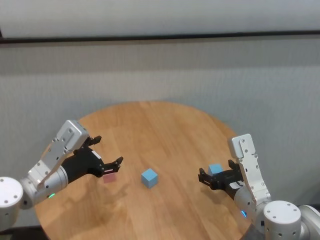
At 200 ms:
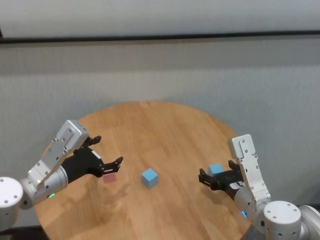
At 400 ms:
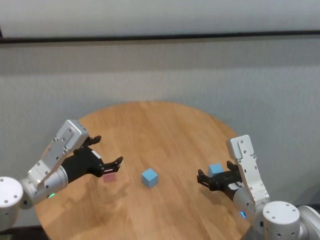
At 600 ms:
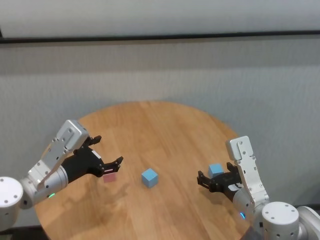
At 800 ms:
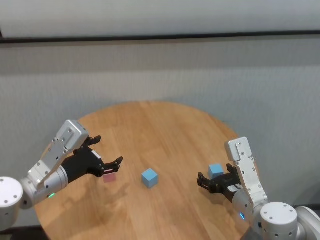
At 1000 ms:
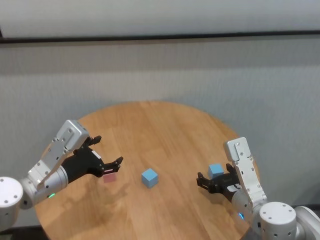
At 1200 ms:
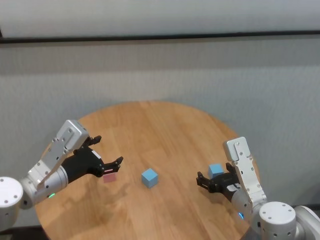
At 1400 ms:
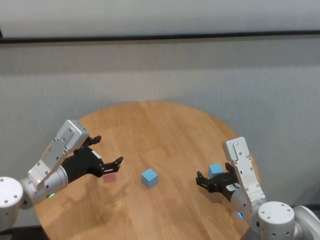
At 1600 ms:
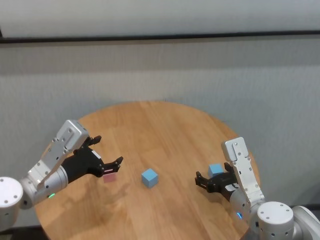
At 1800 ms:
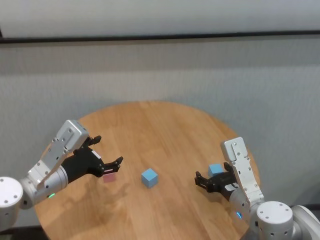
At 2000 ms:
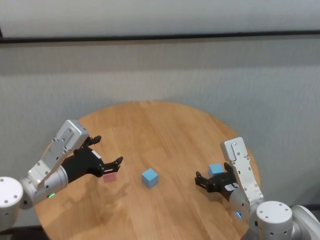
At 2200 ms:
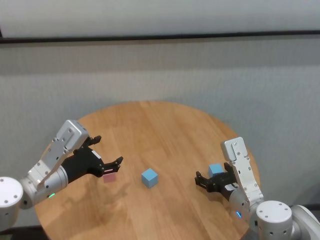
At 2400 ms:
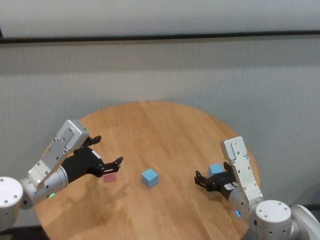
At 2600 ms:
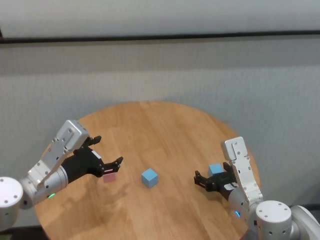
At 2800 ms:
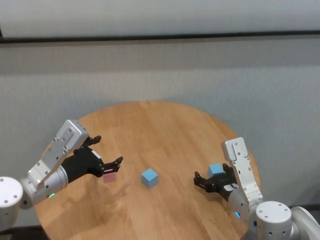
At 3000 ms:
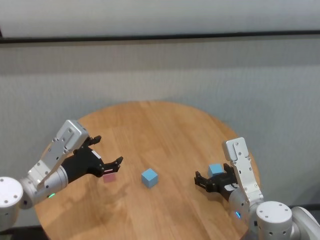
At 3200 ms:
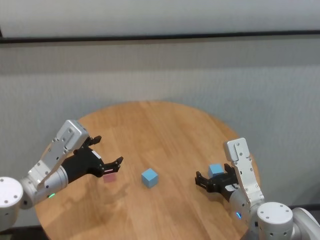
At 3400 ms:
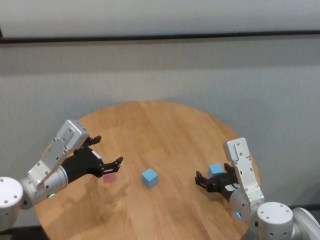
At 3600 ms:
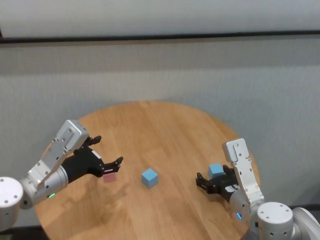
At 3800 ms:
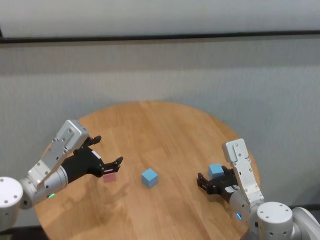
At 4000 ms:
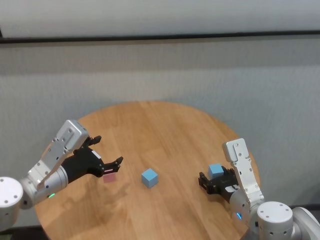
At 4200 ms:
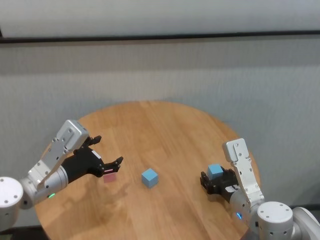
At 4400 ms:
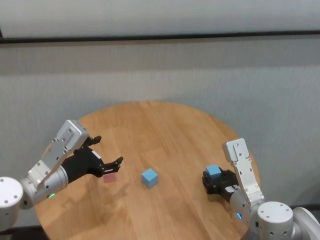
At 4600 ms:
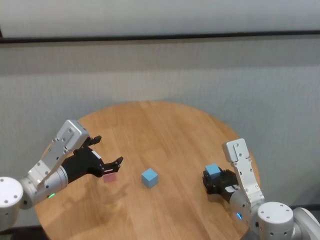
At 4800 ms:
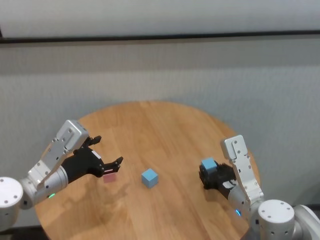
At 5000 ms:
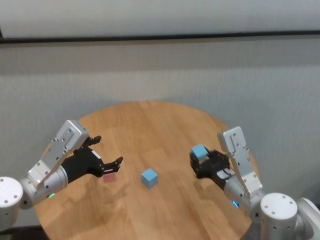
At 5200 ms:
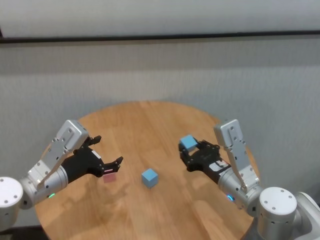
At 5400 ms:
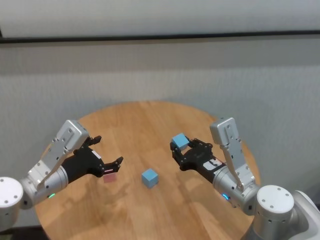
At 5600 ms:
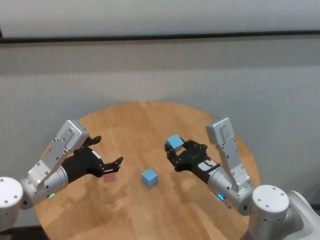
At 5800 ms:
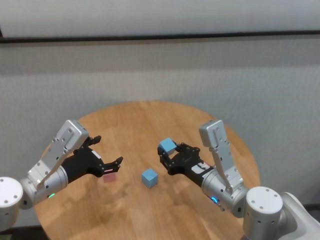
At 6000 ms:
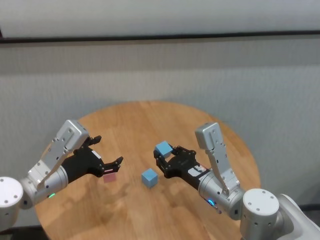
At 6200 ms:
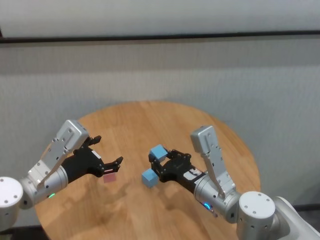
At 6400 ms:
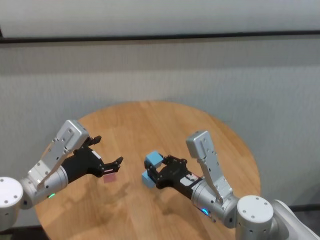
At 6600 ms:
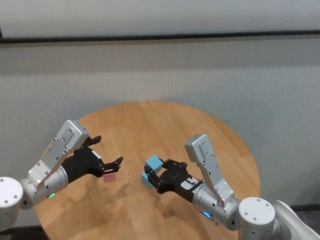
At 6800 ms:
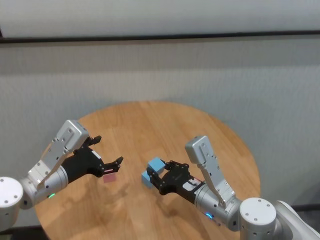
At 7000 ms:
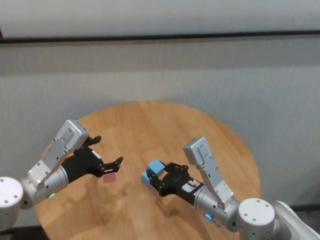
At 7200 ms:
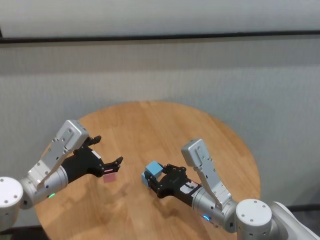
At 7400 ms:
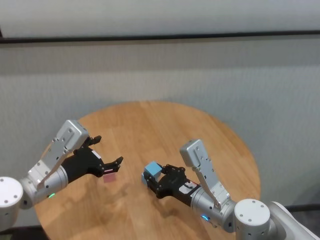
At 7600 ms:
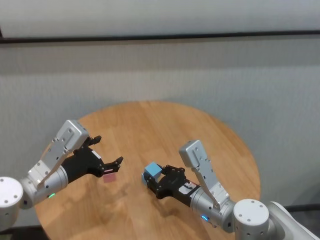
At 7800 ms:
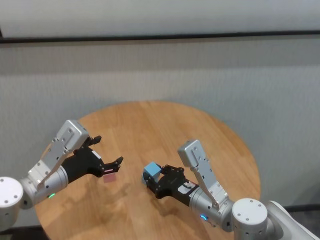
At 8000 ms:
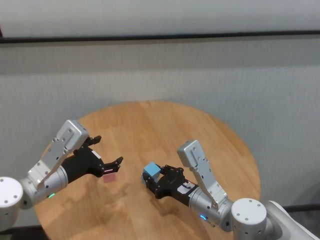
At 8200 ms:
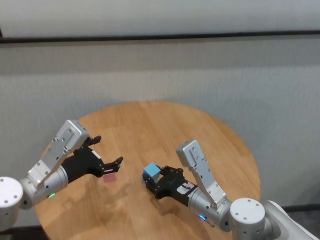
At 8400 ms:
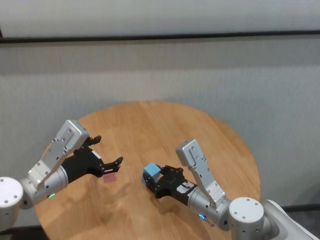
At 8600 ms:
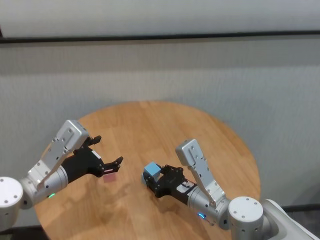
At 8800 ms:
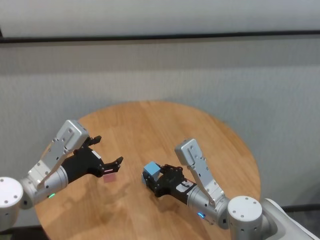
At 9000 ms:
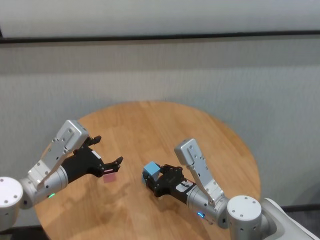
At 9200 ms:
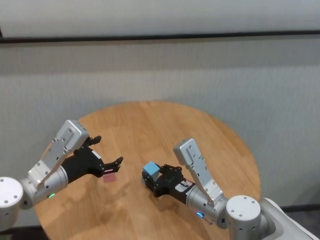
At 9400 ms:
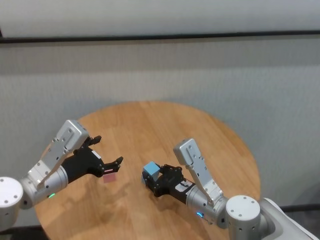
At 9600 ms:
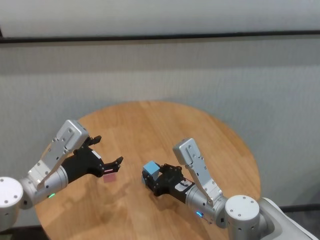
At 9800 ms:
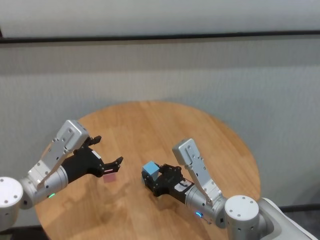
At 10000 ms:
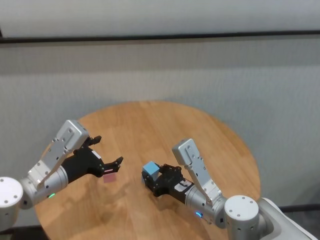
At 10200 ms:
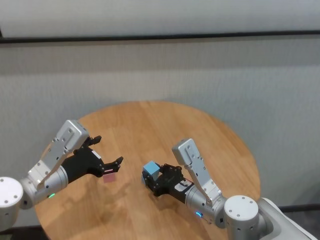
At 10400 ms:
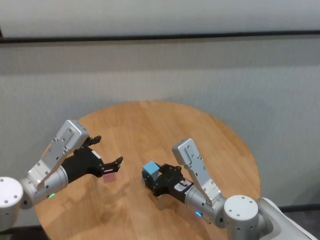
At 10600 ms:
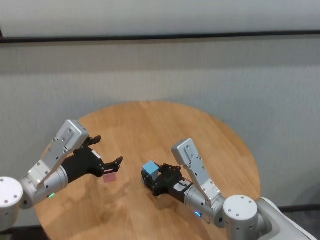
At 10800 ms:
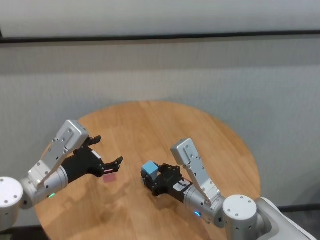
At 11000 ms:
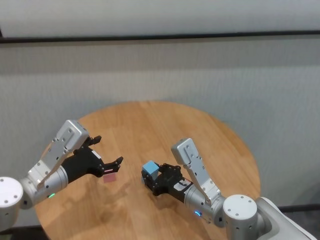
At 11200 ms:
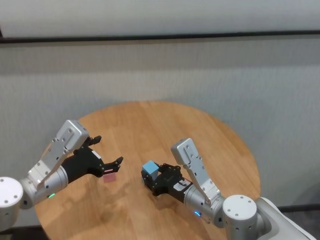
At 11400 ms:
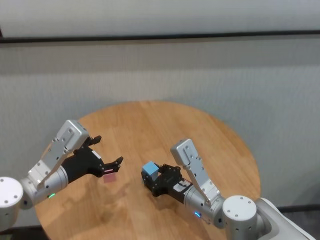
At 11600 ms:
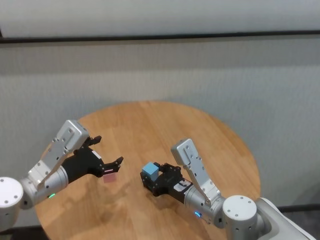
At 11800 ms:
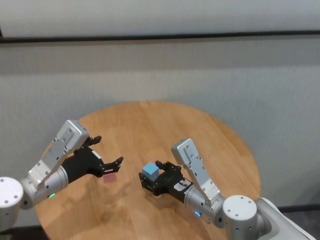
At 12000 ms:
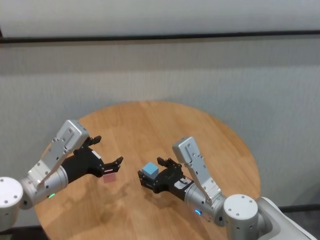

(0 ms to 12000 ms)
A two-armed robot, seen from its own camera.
Task of the whole recording: stack building blocks on the table.
Step, 0 ms - 4400 ms: Grasp the blue building block with right gripper.

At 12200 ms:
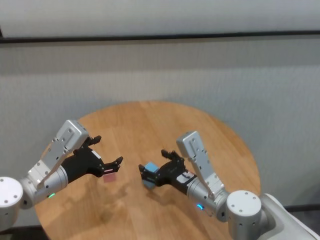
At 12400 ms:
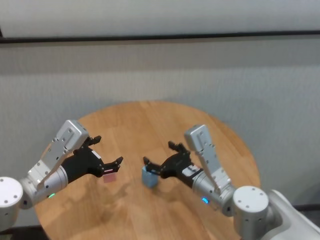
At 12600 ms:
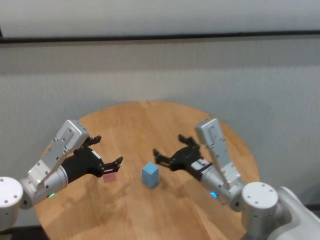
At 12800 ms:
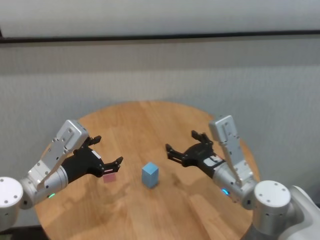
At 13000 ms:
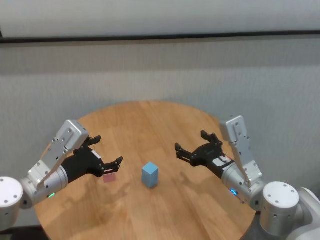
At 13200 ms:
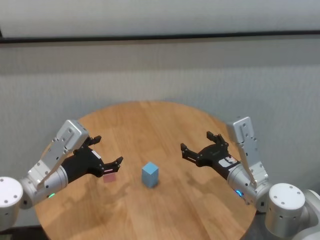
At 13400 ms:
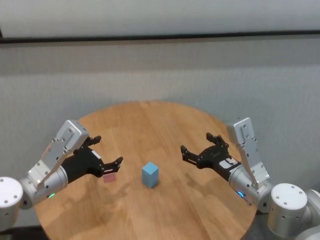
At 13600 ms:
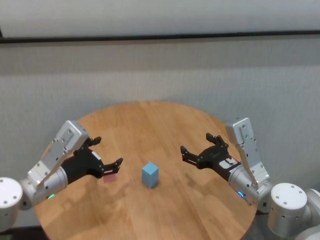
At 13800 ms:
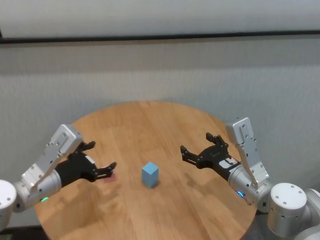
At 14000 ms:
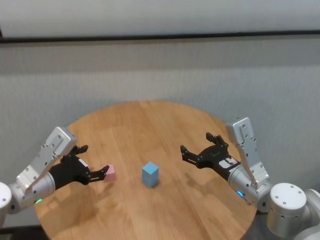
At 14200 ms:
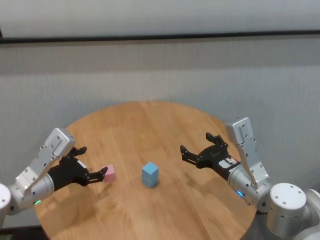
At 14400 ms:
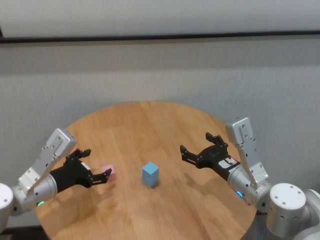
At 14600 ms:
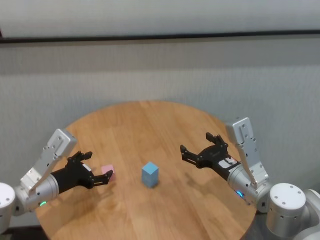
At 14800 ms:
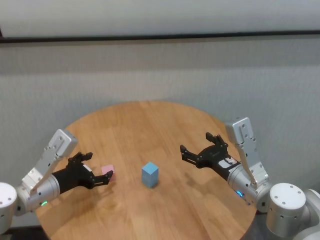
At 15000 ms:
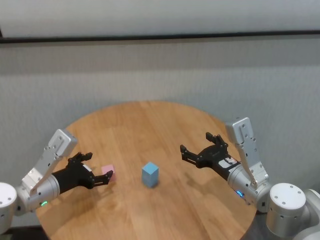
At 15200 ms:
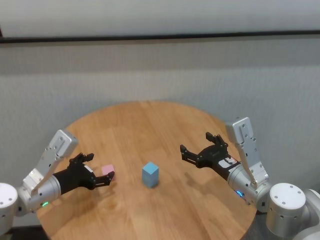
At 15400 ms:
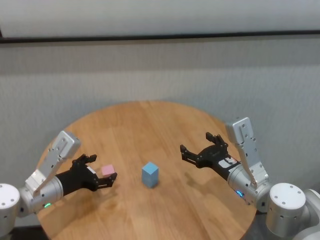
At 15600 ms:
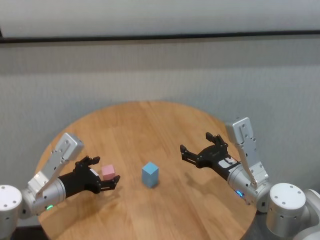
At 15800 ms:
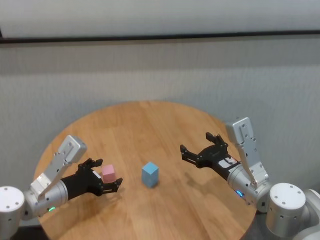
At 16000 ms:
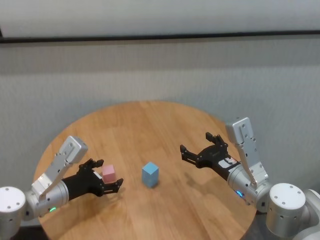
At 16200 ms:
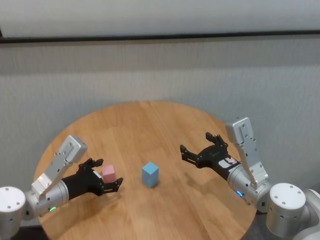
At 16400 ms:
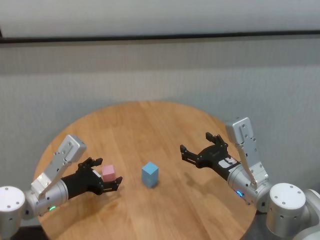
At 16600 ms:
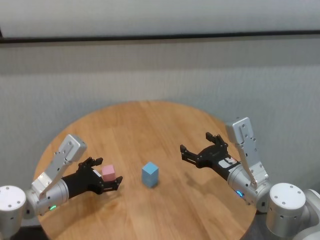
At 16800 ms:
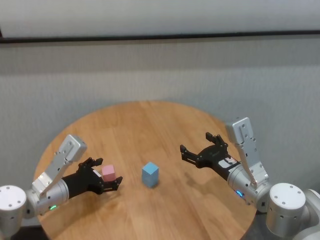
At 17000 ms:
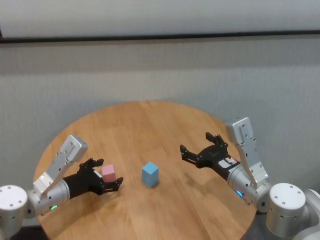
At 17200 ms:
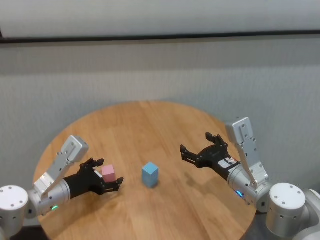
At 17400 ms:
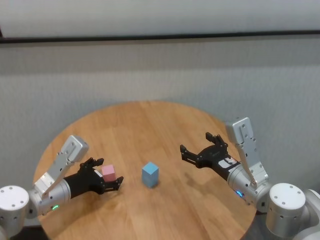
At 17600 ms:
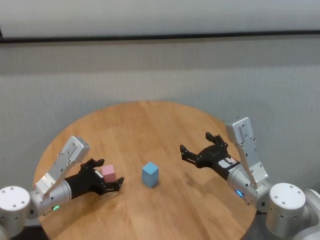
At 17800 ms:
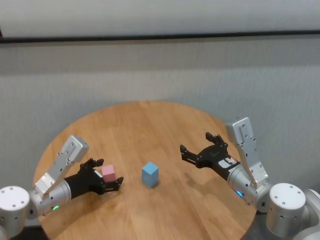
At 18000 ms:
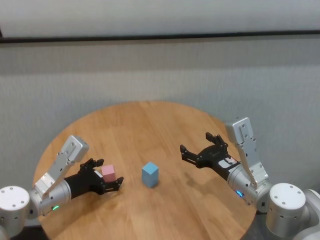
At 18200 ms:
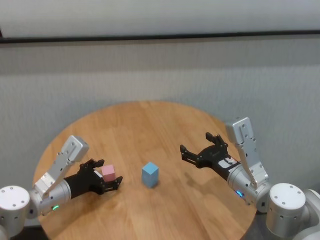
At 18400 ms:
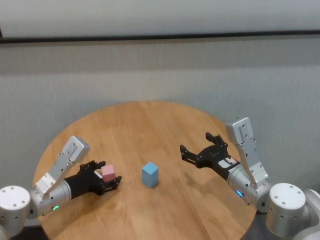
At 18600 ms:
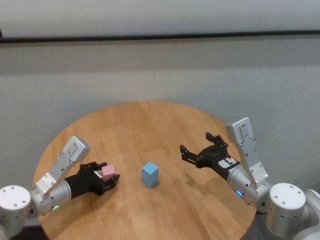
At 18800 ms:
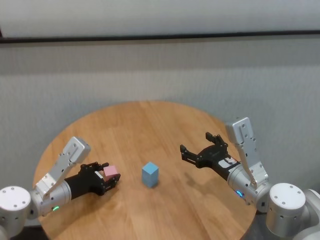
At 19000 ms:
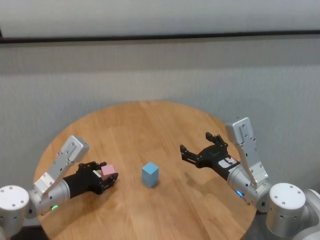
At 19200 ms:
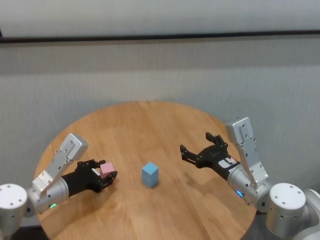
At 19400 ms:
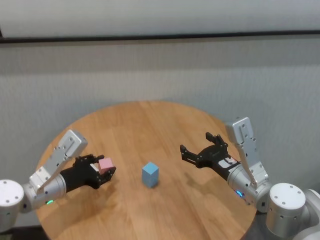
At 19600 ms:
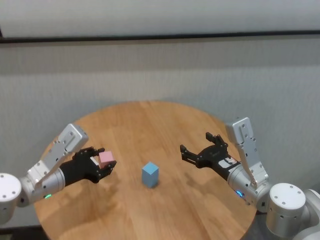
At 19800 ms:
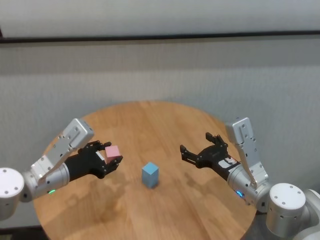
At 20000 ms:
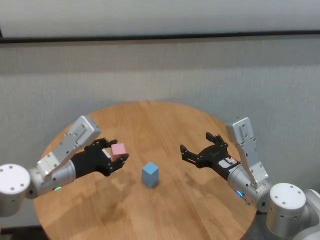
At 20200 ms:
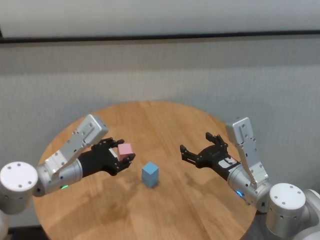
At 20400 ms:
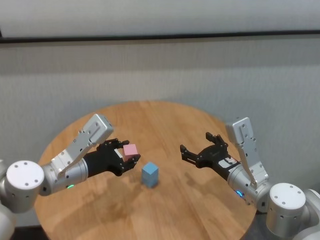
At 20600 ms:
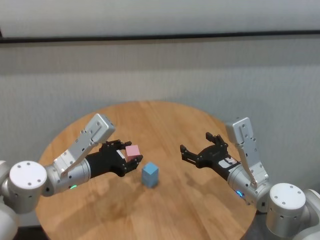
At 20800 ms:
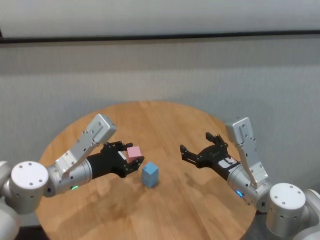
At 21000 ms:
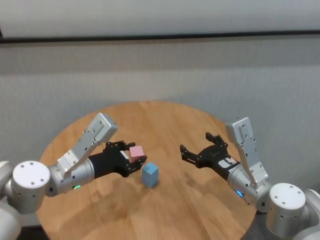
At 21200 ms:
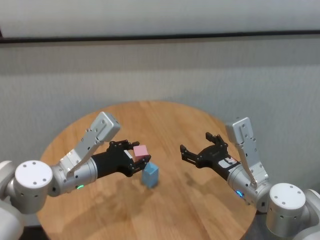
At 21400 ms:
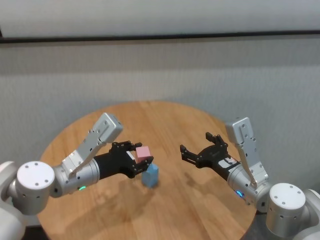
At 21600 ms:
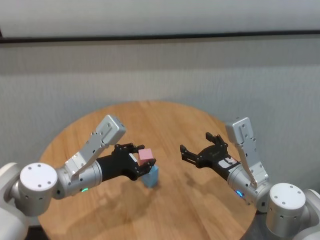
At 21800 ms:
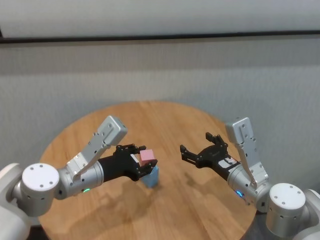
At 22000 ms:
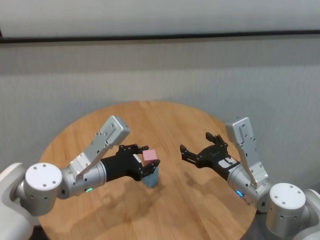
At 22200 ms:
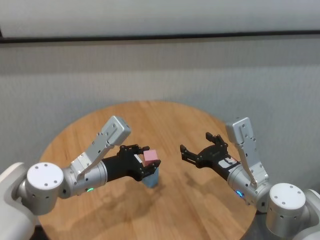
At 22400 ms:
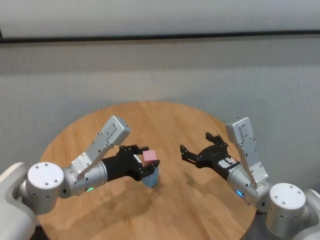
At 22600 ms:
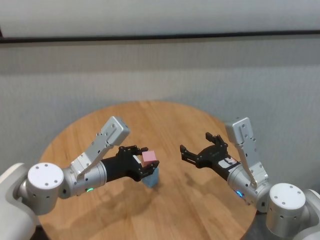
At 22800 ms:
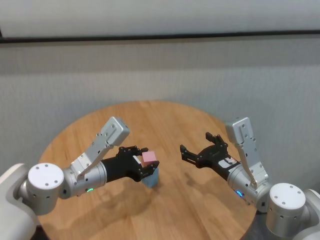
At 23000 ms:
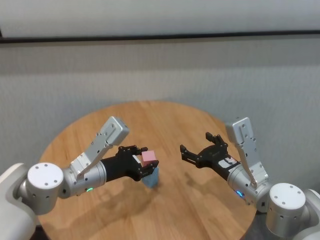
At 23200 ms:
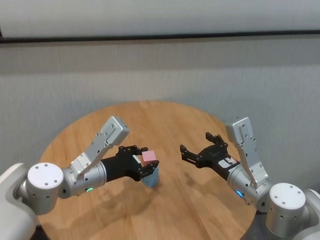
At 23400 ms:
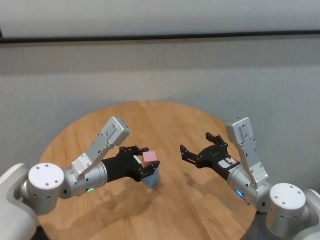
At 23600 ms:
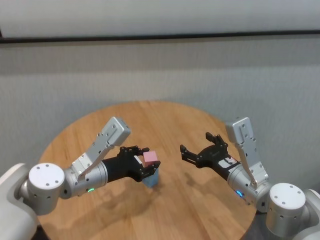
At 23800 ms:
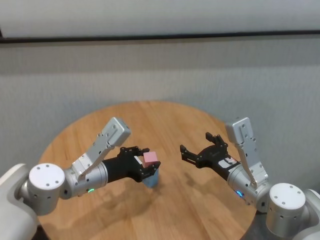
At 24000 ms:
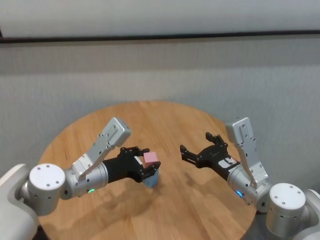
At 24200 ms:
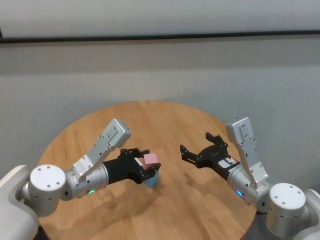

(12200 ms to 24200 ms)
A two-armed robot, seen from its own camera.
Task of the whole recording: stack building blocks on the table.
Step, 12200 ms - 18800 ms: Grasp the pink building block with left gripper.
